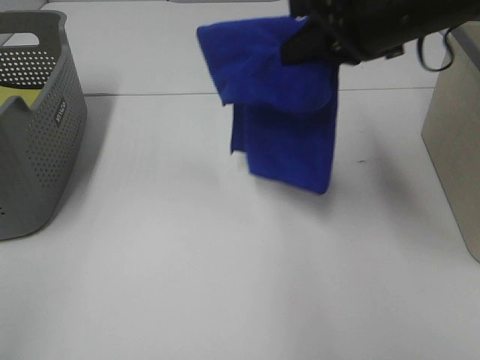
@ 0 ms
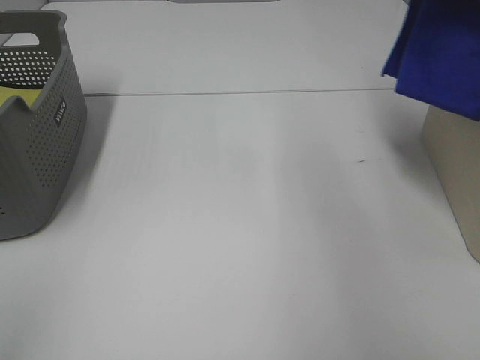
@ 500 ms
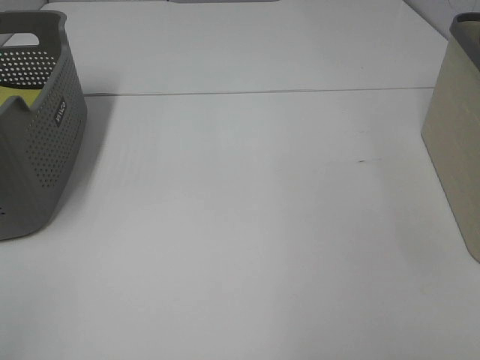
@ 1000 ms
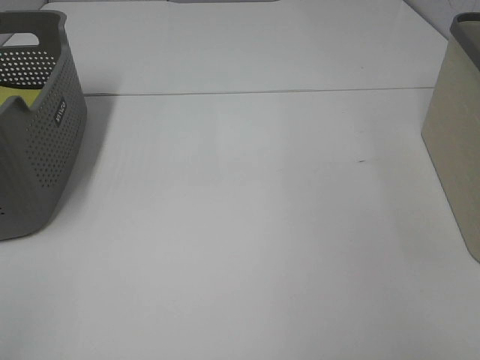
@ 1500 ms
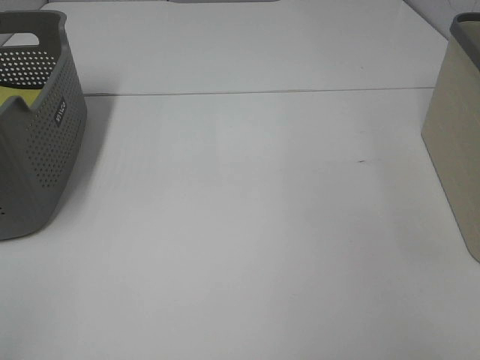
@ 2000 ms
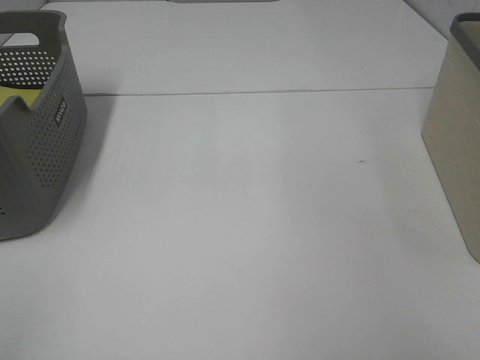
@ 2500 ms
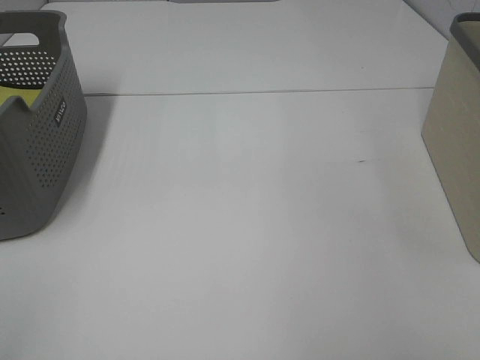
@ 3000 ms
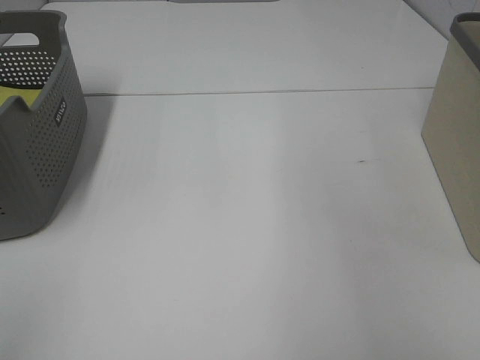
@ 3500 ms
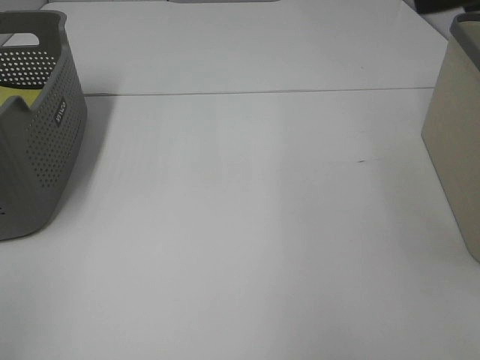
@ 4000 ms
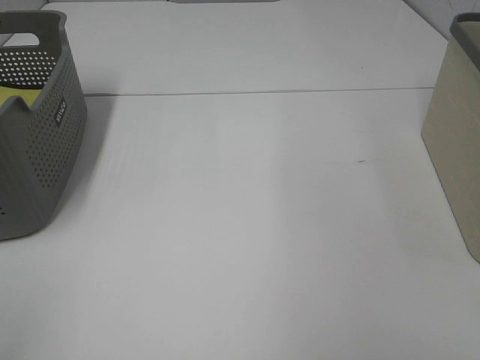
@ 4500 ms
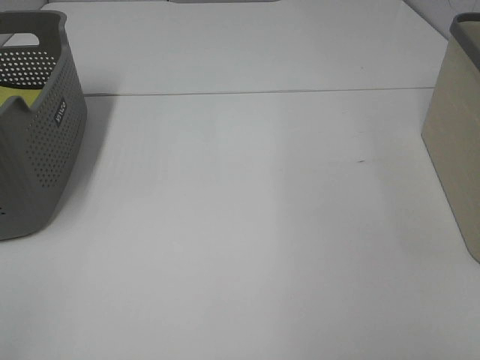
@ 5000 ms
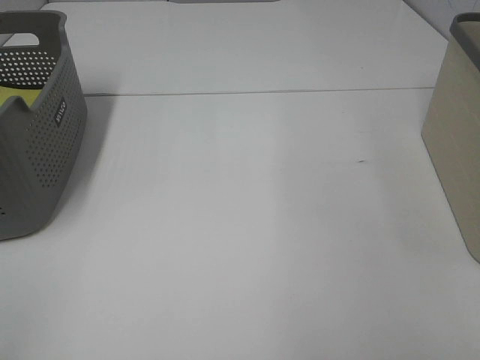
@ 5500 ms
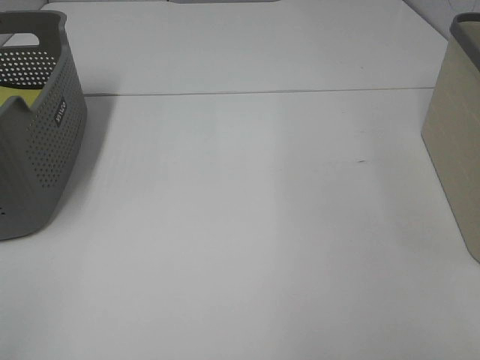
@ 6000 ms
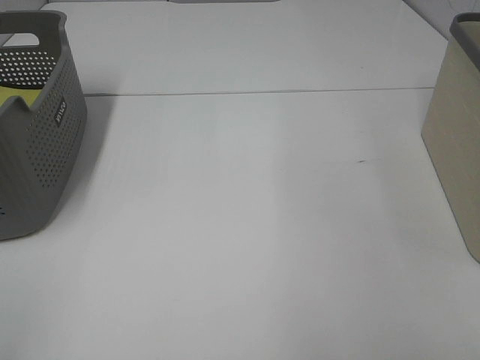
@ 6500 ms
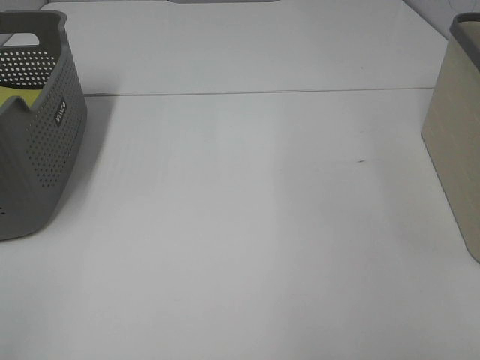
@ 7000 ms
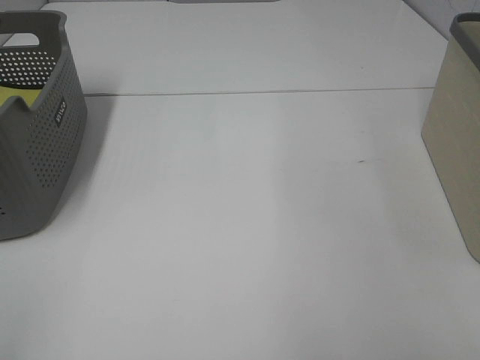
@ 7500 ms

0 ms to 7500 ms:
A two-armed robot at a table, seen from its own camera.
Step, 0 ms to 2500 ms: Right hand: place the blue towel in right basket.
0 ms to 2000 ms: The right gripper travels to the right by about 30 cm.
2000 ms to 4000 ms: The right gripper heads to the left, backward and upward, covering some 30 cm, and opens.
4000 ms to 5500 ms: The right gripper is displaced backward, downward and to the right by about 25 cm.
5500 ms to 7500 ms: Both grippers stay about where they are.
